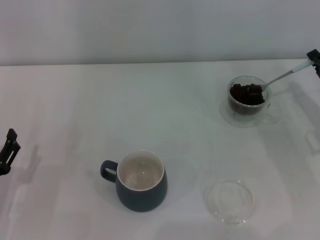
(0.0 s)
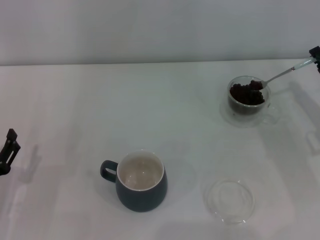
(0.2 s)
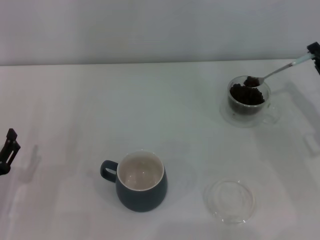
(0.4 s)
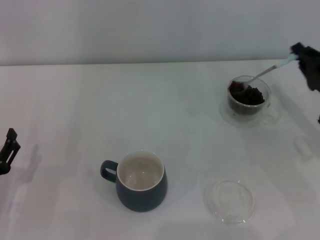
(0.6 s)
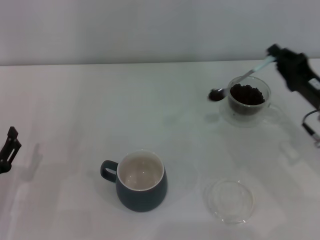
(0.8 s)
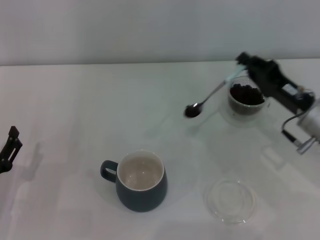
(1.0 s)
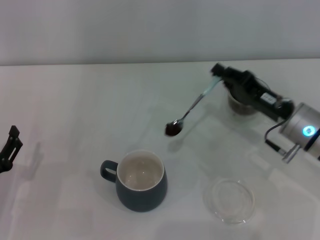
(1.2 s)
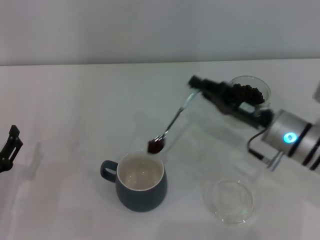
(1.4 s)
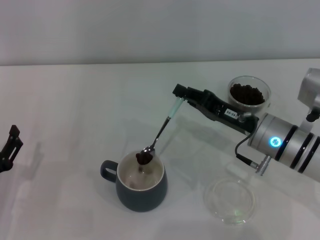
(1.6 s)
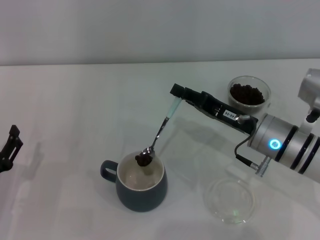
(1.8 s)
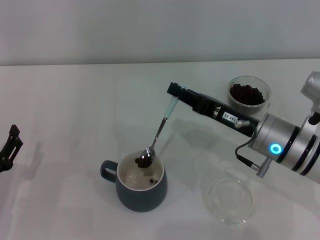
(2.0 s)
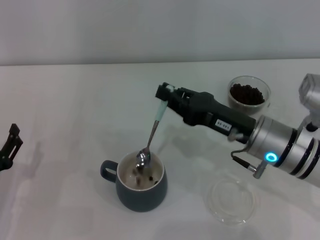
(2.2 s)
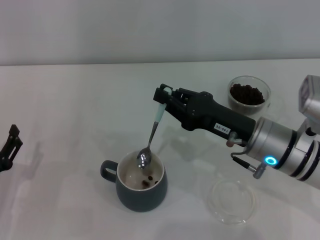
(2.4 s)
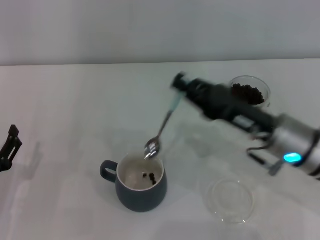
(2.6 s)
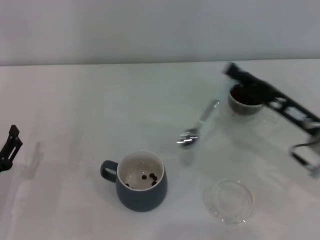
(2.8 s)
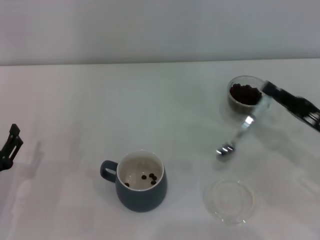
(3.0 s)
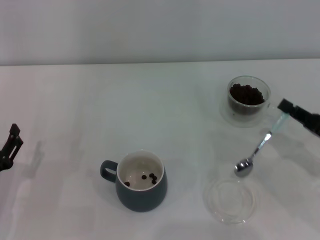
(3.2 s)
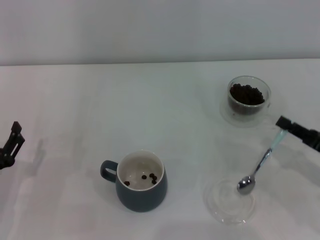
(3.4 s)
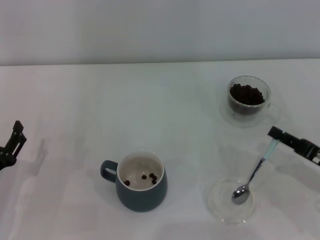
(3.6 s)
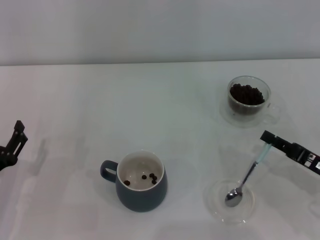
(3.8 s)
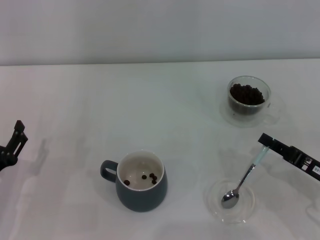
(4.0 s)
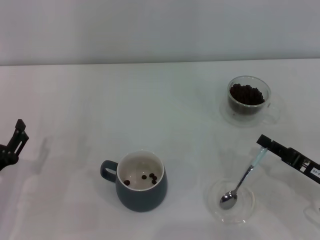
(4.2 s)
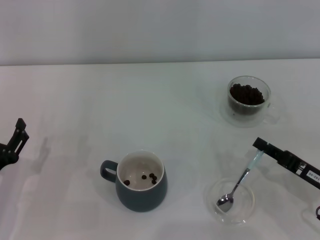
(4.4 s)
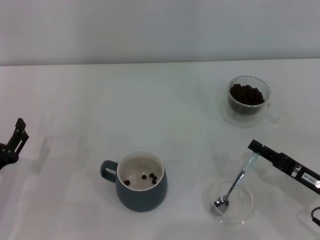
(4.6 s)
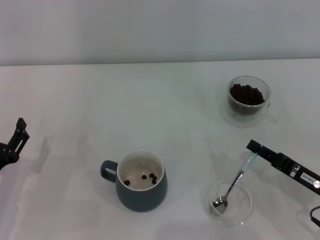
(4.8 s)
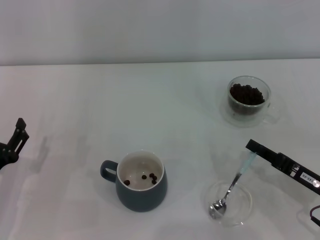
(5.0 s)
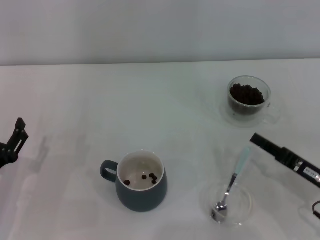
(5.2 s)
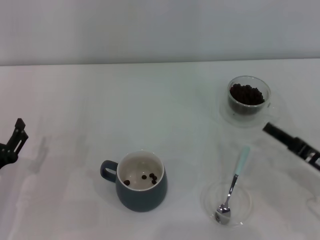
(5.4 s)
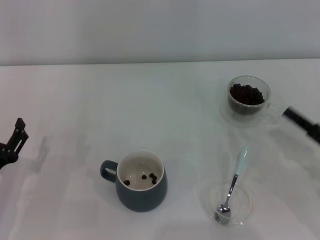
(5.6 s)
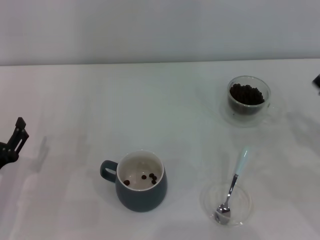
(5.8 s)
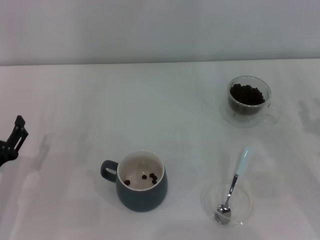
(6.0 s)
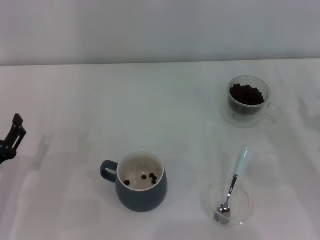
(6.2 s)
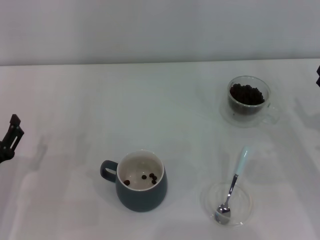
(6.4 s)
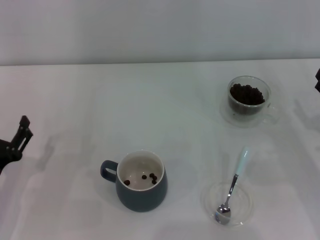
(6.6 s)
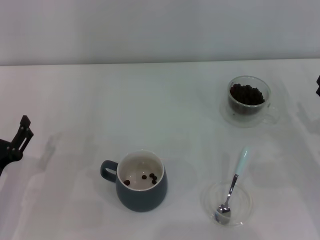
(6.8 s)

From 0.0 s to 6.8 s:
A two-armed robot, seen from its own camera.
Task of the whole recording: Use a blue spoon to take out the coffee beans from the glass and pour them into the gray cup.
Step, from 0.0 s to 2.4 s: Scoop a spoonful of beans into the cup with the right gripper.
Step, from 2.6 s to 5.2 s: Place the spoon back in its original place with the right gripper.
From 0.0 s to 1.4 s: The right gripper shifts about 10 cm to the left.
From 1.4 s to 2.8 s: The right gripper ends up approximately 5 cm from where it was.
From 2.8 s to 4.0 s: The right gripper heads downward, to the right and backward, covering some 10 cm.
From 4.0 s to 5.4 s: The grippers make only small movements.
From 5.4 s to 6.8 s: The right gripper shifts by some 5 cm, and opens up.

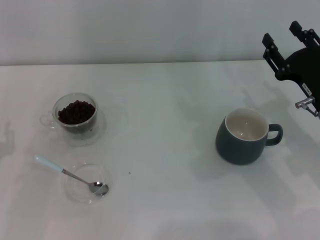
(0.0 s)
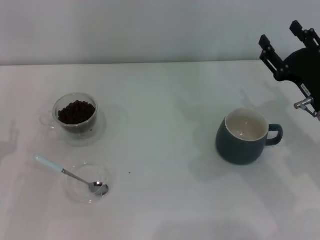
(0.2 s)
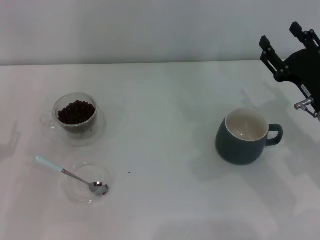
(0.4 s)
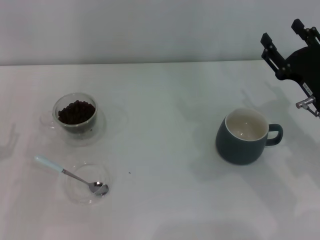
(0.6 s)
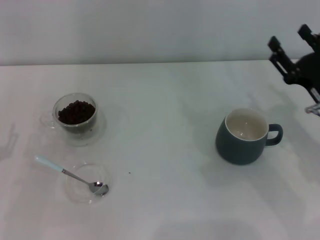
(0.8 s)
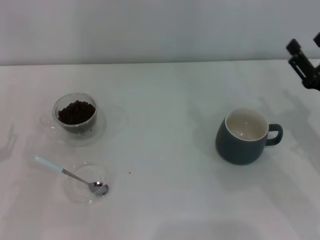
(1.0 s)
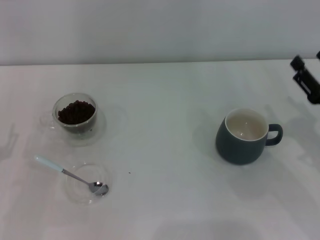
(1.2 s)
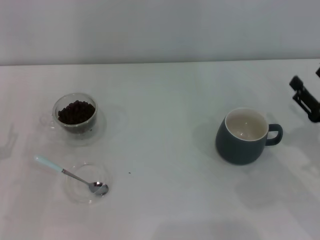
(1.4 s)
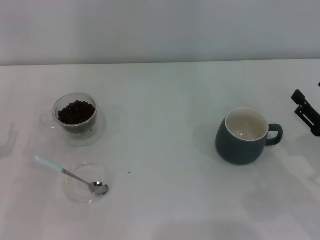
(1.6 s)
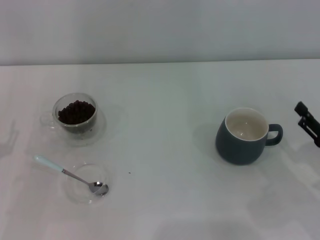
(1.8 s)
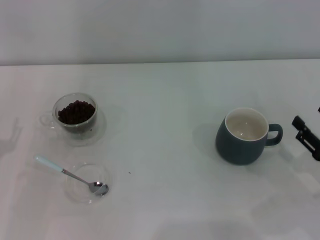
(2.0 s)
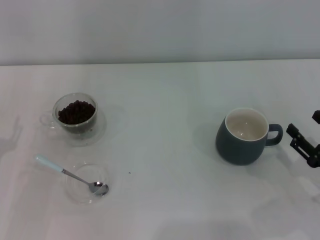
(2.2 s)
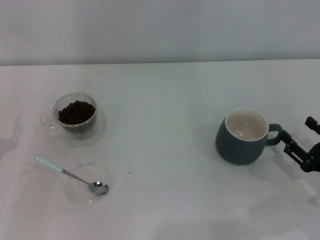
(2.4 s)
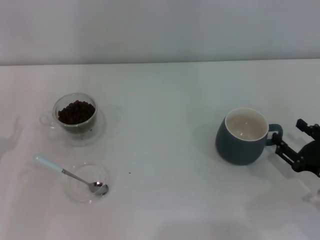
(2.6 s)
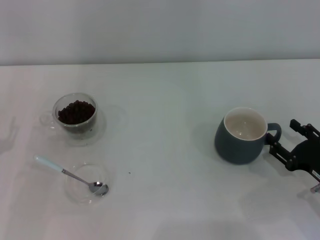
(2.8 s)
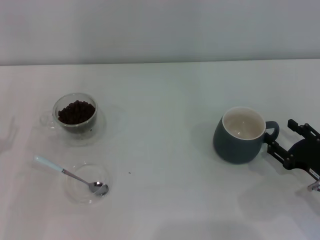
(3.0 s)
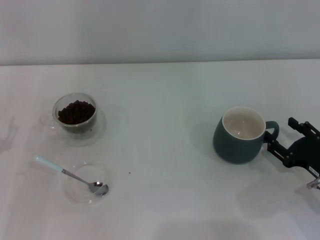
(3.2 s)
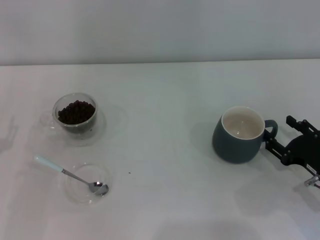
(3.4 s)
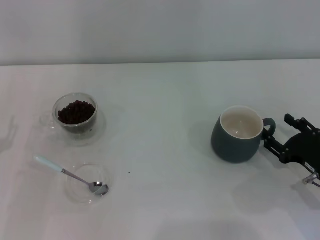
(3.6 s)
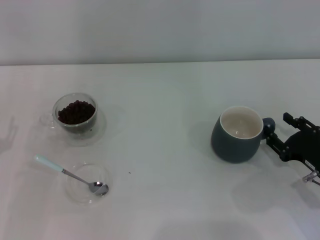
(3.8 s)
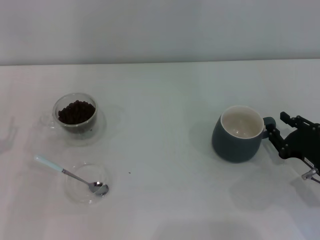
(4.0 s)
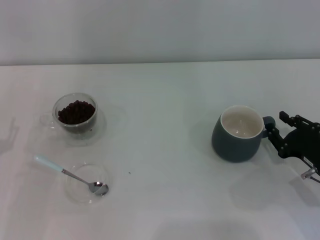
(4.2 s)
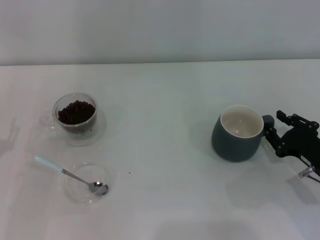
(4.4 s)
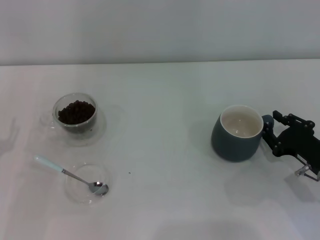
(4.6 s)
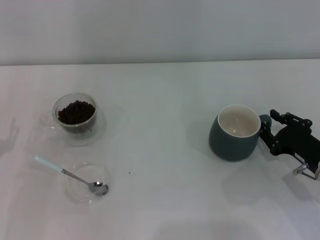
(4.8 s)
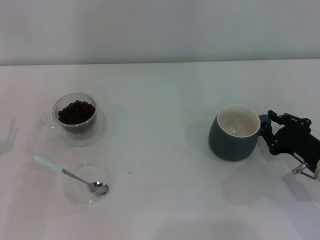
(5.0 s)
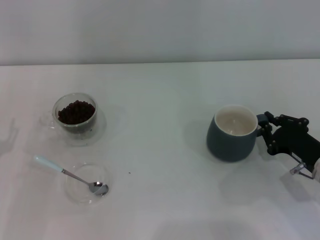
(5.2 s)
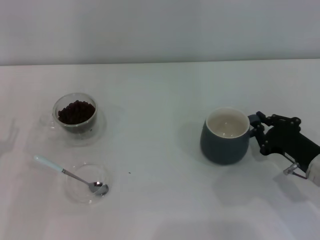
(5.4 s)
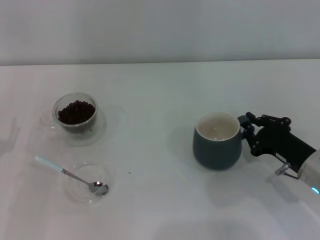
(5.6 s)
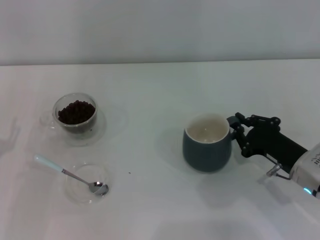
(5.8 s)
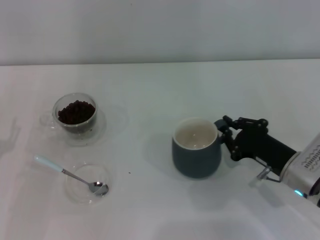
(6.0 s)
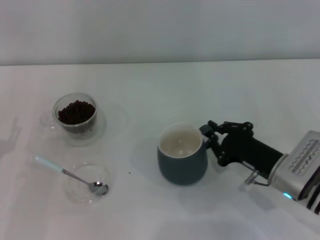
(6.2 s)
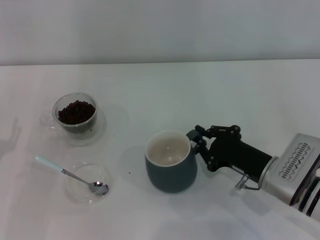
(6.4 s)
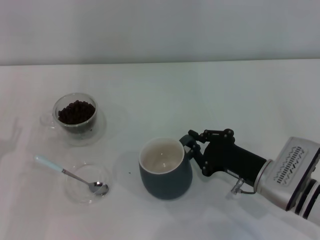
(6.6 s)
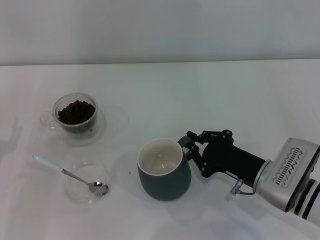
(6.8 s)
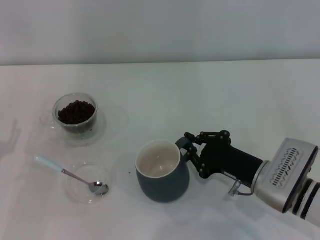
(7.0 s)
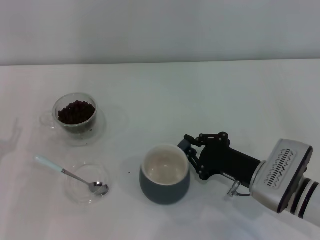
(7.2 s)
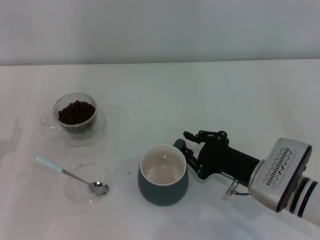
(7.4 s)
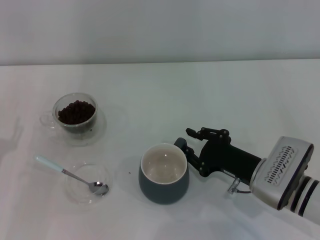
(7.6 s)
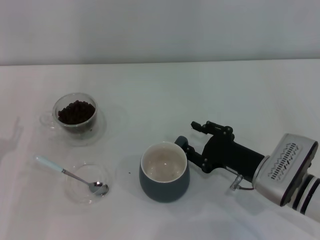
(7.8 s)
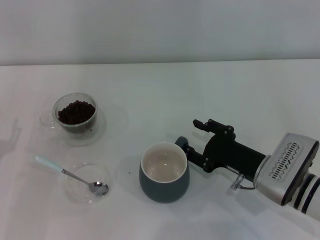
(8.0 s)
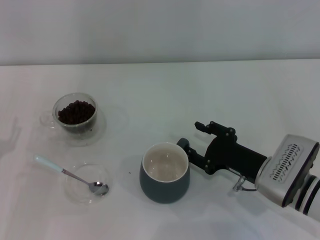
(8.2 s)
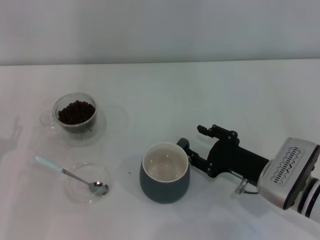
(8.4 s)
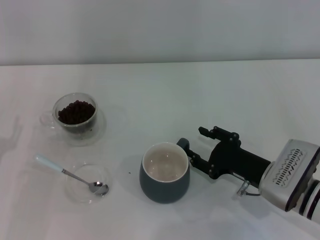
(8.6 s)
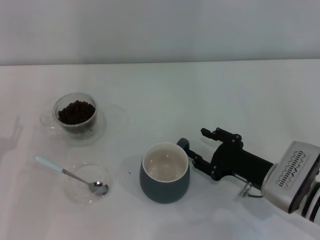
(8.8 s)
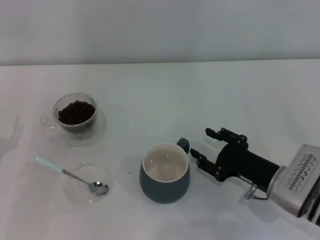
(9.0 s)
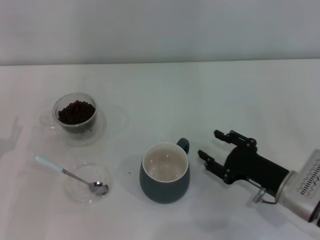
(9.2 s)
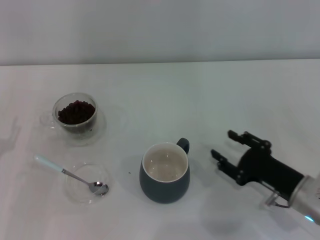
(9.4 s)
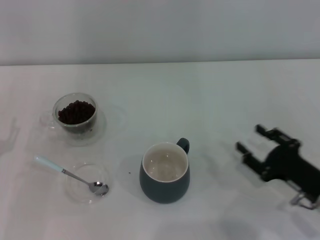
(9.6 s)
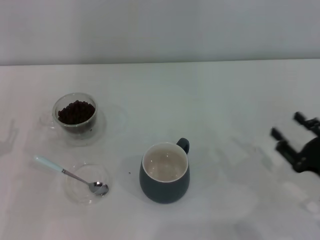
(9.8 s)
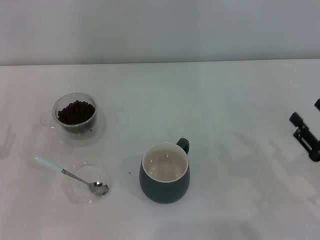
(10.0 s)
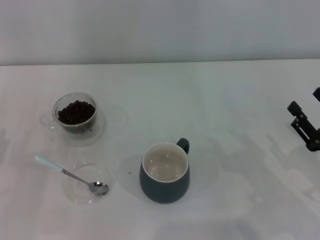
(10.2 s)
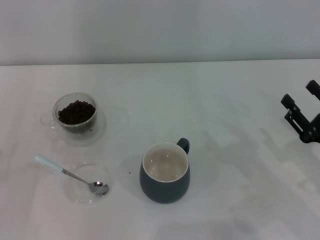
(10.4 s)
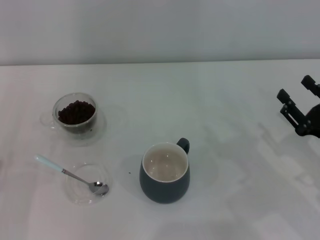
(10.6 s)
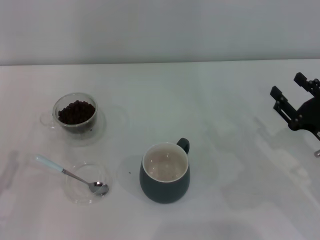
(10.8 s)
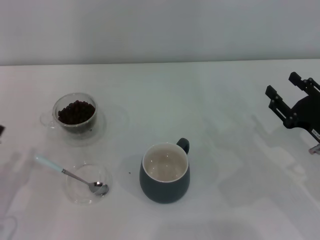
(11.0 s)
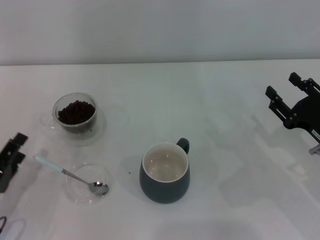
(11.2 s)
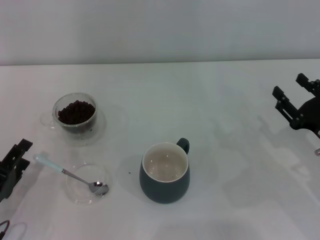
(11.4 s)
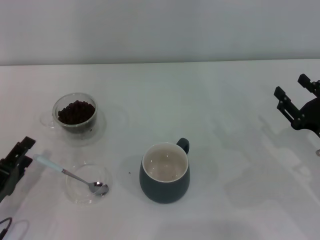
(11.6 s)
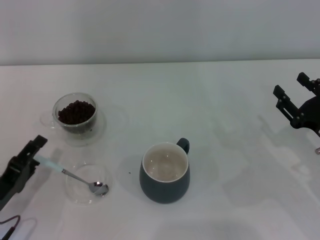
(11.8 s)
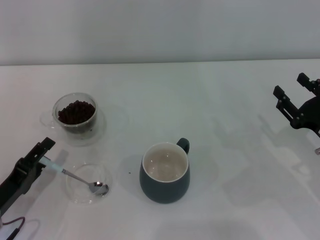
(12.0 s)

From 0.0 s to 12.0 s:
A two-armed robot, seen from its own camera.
Task of the whole recording: Use a blue spoon to take out the coffee beans from the glass and pour them into the gray cup.
Step, from 0.0 s to 9.0 s: Move the cup to the center of view with the left gripper.
From 0.0 s to 1.6 s: The right gripper goes approximately 10 cm backward and to the right, and opens up.
From 1.6 s to 3.0 s: The grippers move only a little.
From 3.0 s to 4.4 s: The right gripper closes its fingers.
From 4.4 s to 6.0 s: The right gripper heads to the left, covering some 5 cm, and closes.
From 6.0 s to 7.6 s: The grippers move only a little.
From 7.6 s to 9.0 s: The right gripper opens up.
From 9.0 s to 10.4 s: The right gripper moves to the right, some 10 cm, while the left gripper heads backward, covering about 5 cm.
From 10.4 s to 12.0 s: The left gripper moves to the right, approximately 5 cm.

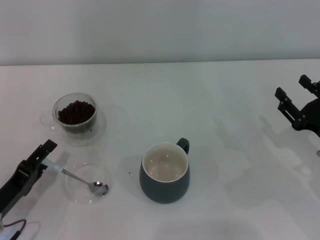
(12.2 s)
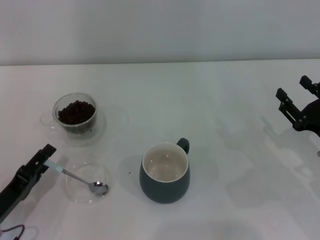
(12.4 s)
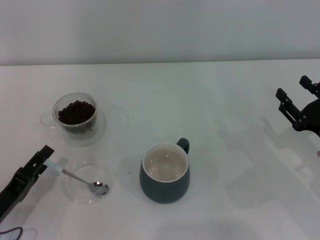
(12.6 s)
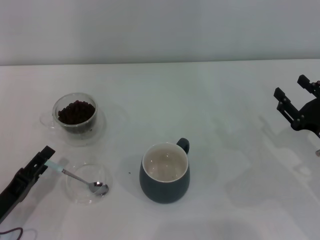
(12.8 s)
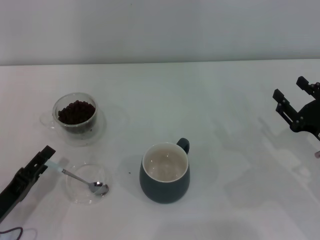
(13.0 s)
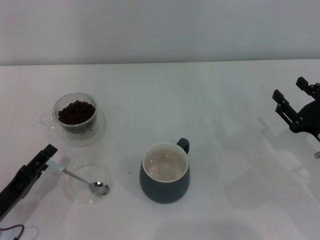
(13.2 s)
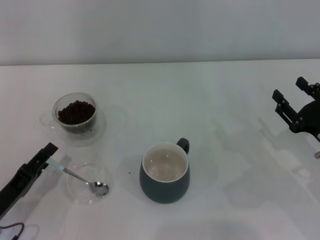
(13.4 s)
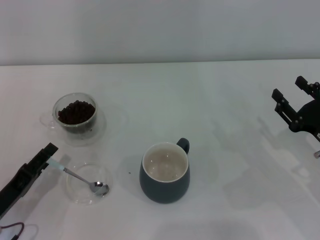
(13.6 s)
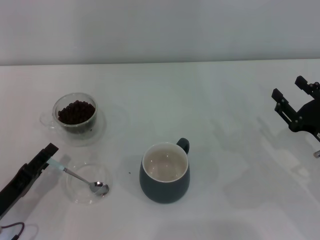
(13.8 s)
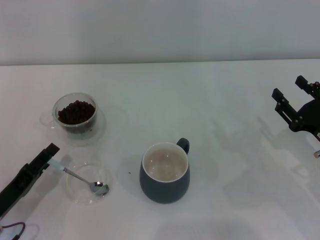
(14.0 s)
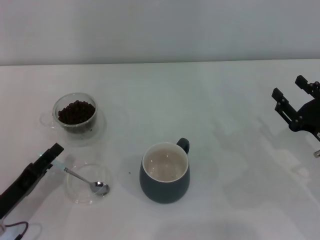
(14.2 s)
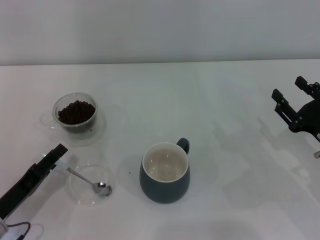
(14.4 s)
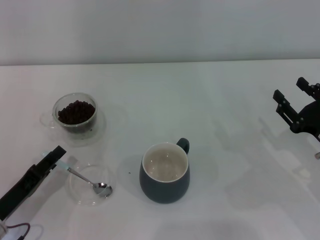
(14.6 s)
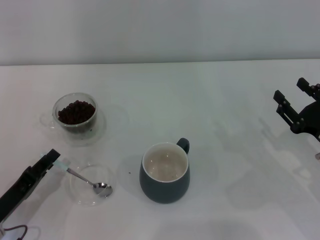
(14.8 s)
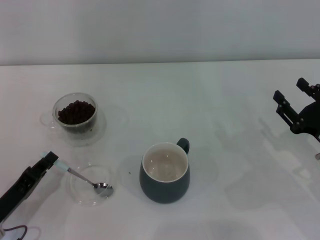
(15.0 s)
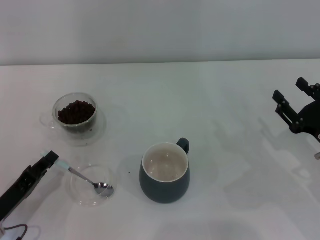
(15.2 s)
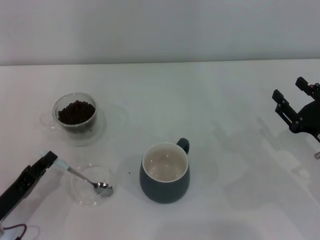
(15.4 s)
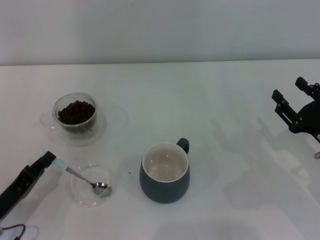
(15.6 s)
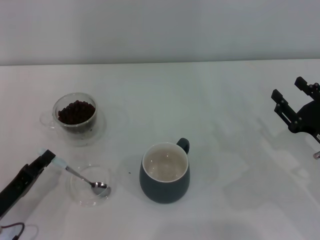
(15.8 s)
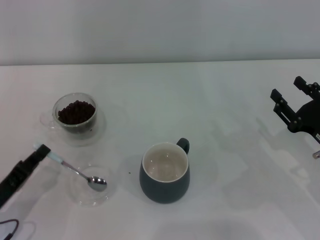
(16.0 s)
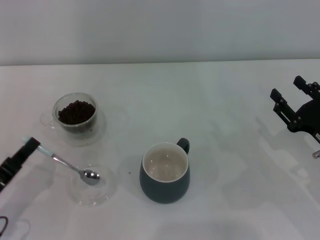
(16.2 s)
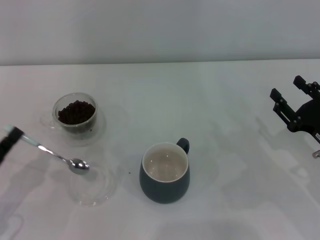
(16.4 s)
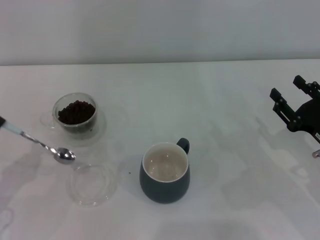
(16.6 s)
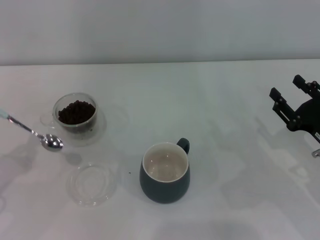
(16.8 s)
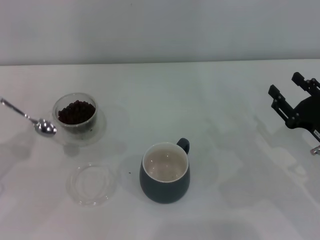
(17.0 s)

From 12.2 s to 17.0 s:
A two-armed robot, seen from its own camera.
Task of the whole recording: Use a blue spoon to take out the coffee beans from the glass and pour them into the gray cup.
Step, from 12.2 s to 16.4 s: Pick up the spoon with the right gripper.
From 12.2 s to 13.8 s: The grippers make only small movements.
From 13.8 s to 15.4 s: The left gripper closes its fingers.
From 15.4 s to 17.0 s: The left gripper moves upward and to the left, some 15 cm.
